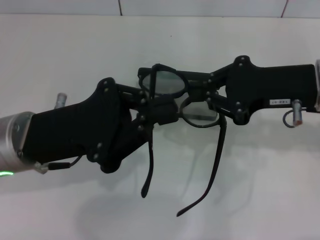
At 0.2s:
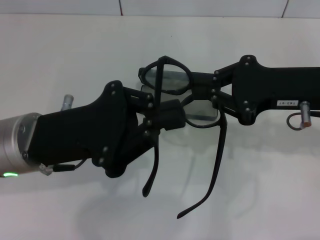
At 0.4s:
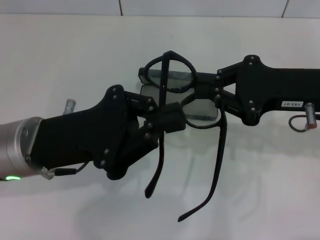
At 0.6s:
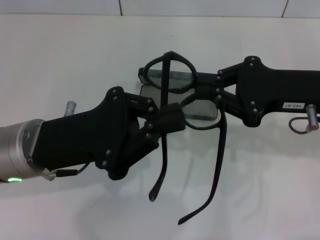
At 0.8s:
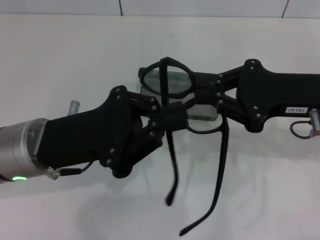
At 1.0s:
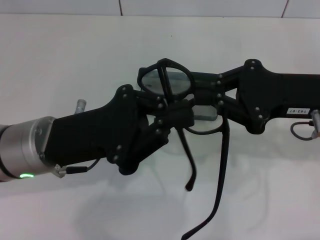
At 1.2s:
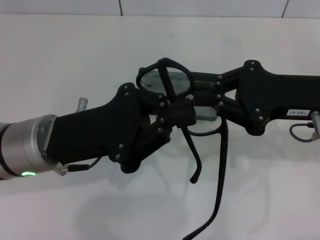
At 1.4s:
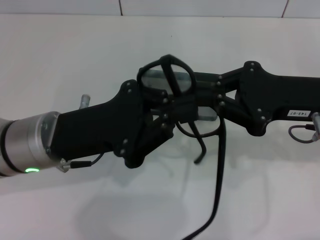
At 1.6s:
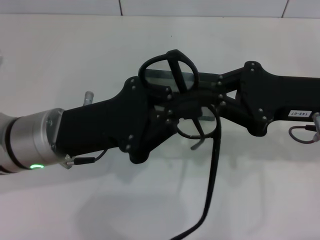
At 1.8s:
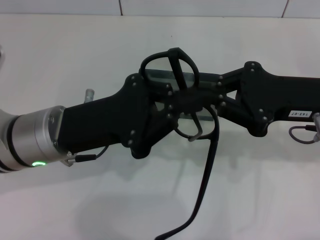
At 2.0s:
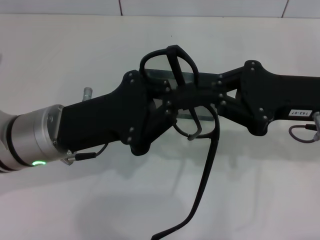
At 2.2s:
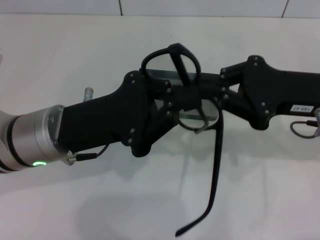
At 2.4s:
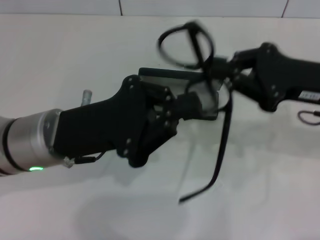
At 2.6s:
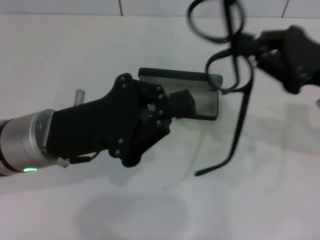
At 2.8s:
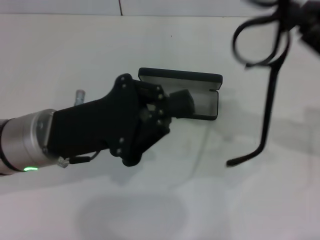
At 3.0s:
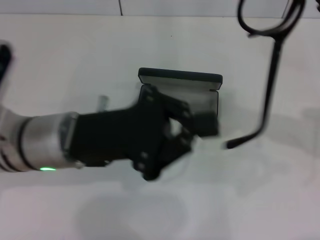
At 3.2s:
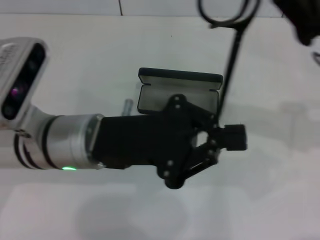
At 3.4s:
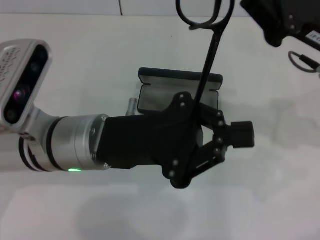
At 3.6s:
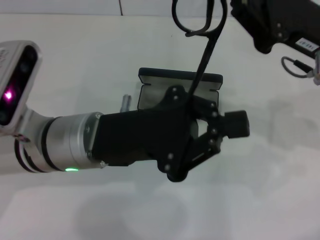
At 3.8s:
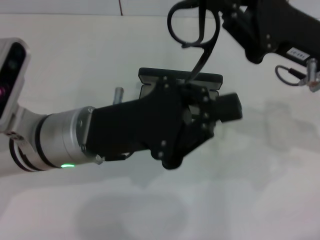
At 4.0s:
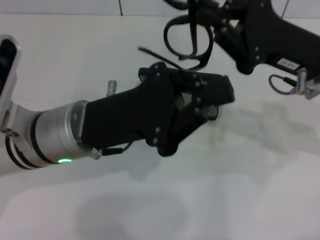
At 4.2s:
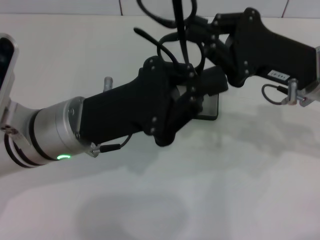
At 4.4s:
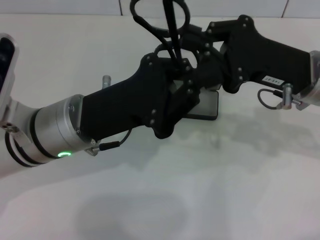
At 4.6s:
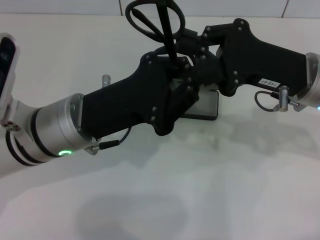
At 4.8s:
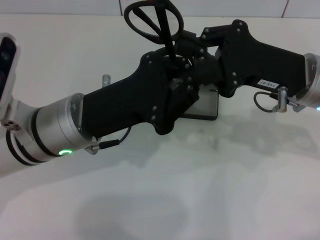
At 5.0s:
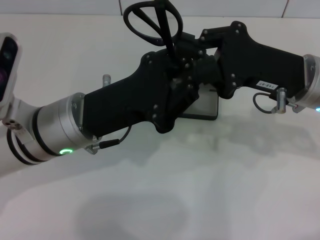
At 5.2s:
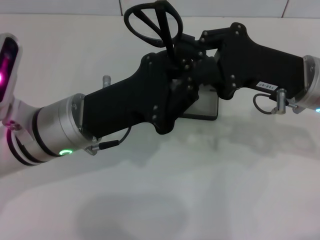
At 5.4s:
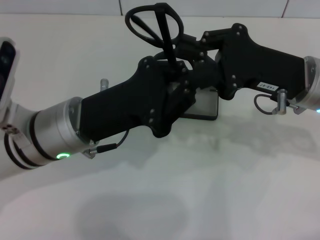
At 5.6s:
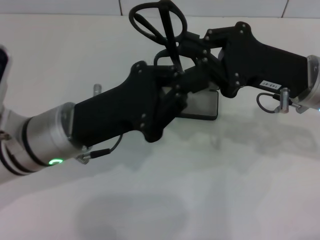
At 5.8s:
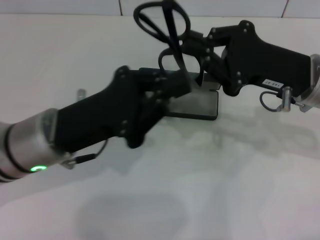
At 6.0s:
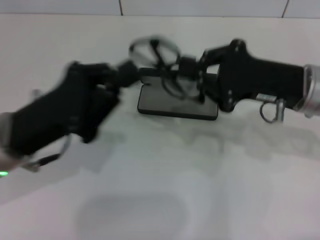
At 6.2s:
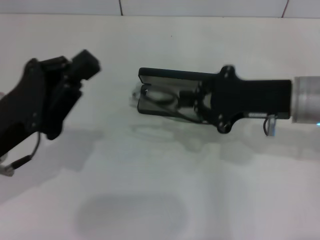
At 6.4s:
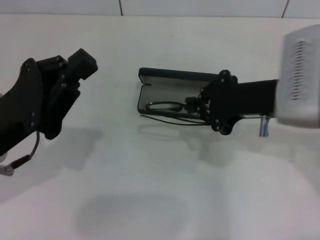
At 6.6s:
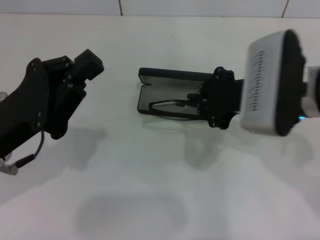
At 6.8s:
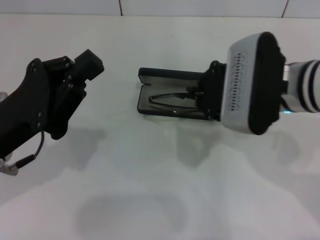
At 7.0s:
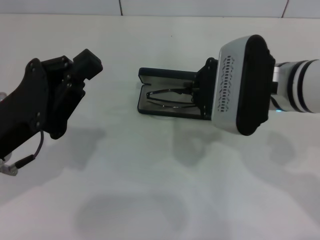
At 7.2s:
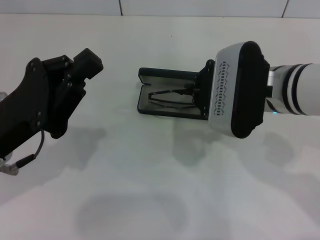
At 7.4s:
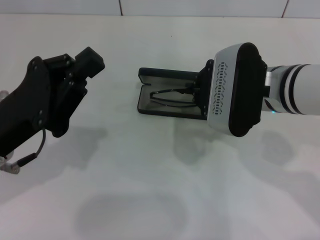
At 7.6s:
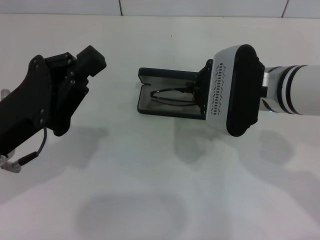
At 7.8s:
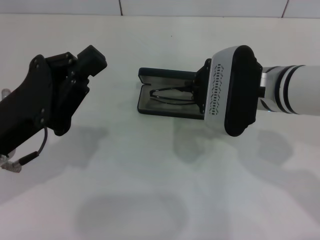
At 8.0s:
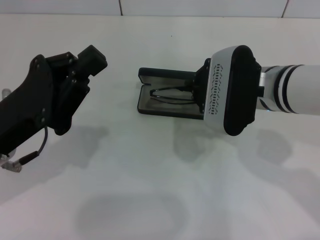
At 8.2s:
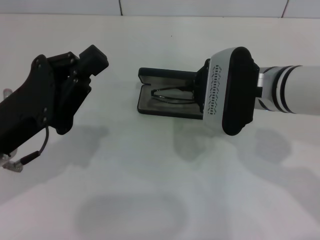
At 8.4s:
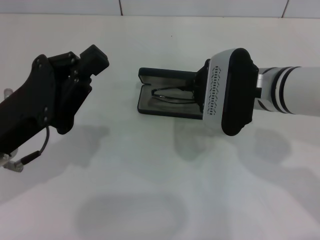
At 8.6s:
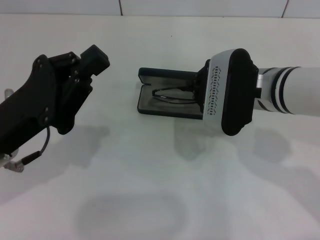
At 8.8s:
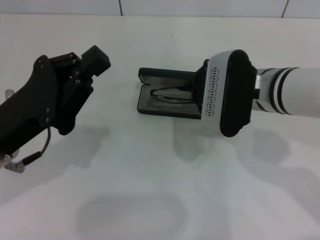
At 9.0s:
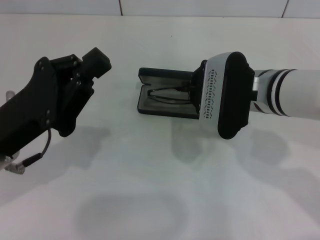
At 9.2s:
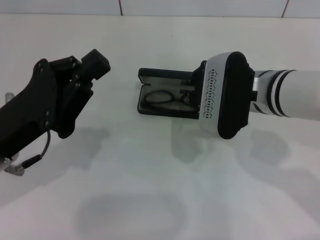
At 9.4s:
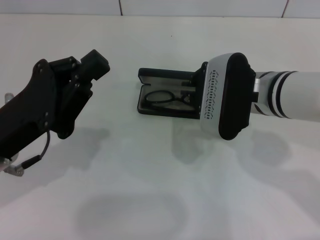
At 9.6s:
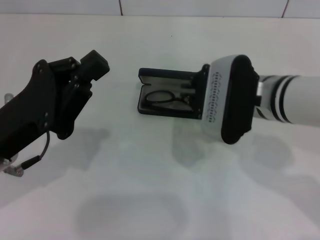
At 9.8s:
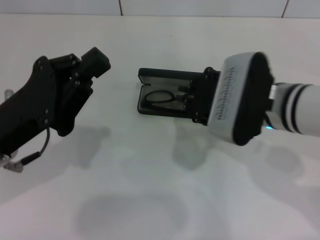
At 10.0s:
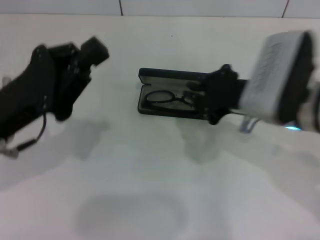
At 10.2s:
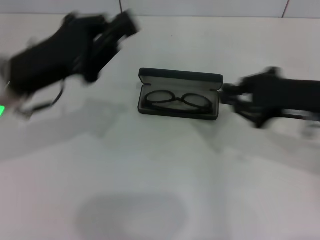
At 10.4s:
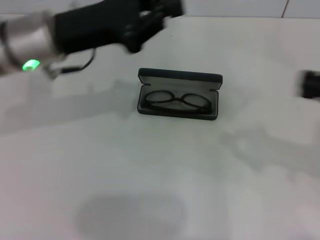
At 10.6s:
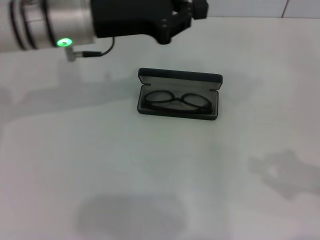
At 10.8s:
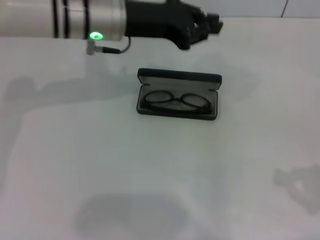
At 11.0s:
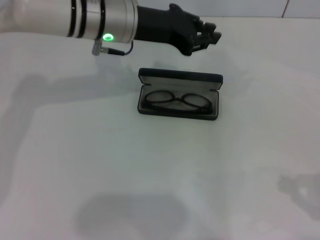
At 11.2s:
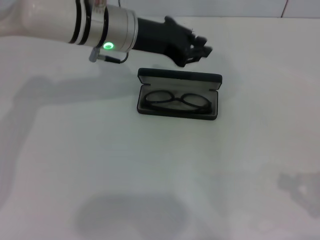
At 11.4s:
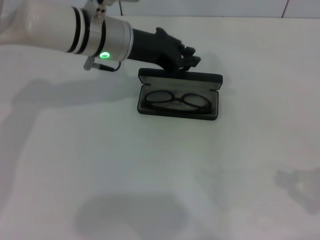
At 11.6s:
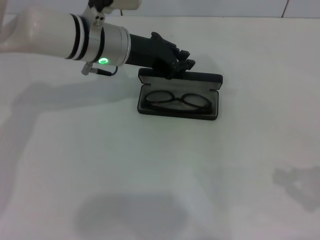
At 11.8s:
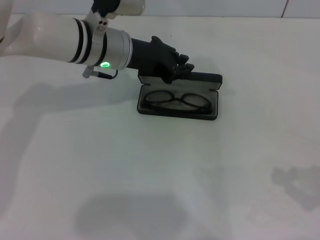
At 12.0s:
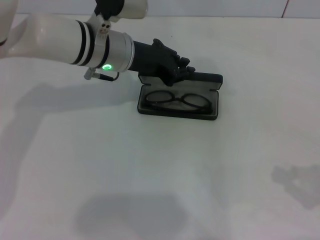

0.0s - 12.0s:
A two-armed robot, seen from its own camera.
Step, 0.0s - 5.2s: Fold the frame with your left hand.
Step, 5.6s - 9.0s: Put the glasses into the case with your right hand.
0.0s - 1.6s: The grippers move only a little.
1.6s - 3.0s: The right gripper shifts by about 5 cm.
3.0s - 4.4s: The right gripper travels to the left by about 5 cm.
4.4s - 6.0s: The left gripper moves to the left, about 5 cm.
6.0s - 7.6s: The right gripper is displaced to the left by approximately 5 cm.
7.6s - 9.0s: The grippers make only small movements.
9.0s - 10.4s: The right gripper goes approximately 20 cm to the right and backward. Meanwhile the left gripper goes roughly 15 cm forward, upward and to the right.
10.4s - 12.0s: The right gripper travels downward, to the right and backward by approximately 10 cm, while the left gripper goes roughly 10 cm to the right and forward.

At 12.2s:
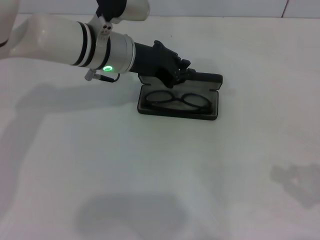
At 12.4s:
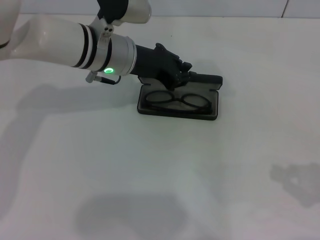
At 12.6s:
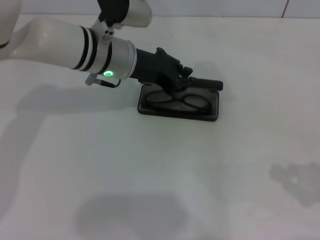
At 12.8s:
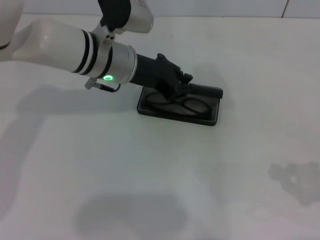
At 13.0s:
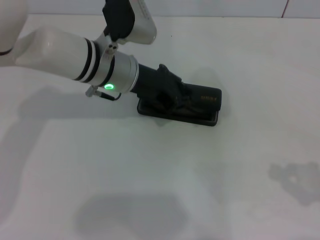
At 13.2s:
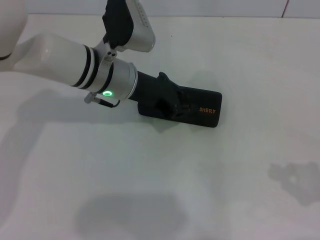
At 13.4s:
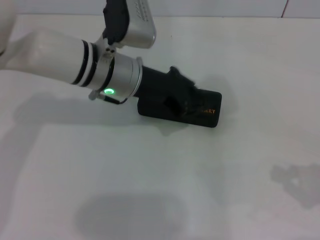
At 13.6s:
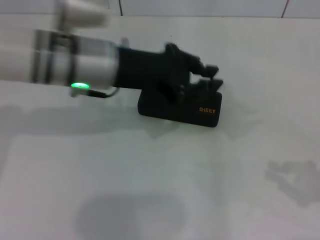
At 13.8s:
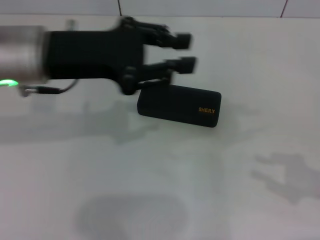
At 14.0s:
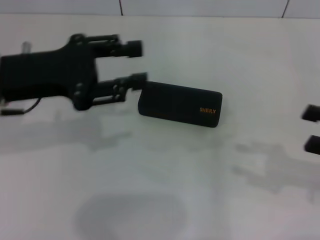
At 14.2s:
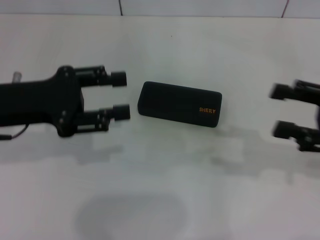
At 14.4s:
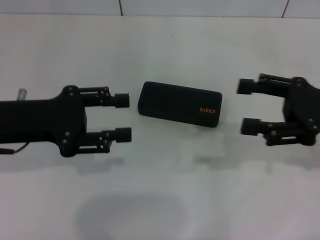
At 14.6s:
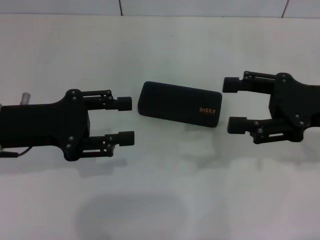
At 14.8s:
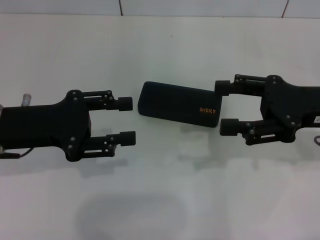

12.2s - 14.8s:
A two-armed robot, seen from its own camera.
12.2s - 13.4s: The grippers move only a little.
13.4s - 14.8s: The left gripper moves to the left and backward, about 20 cm, and opens its fingers. Meanwhile the right gripper goes roughly 15 cm to the left and forward, and opens its fingers.

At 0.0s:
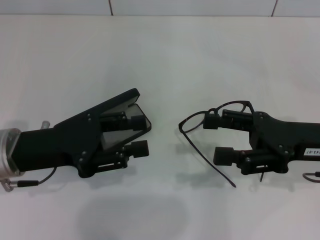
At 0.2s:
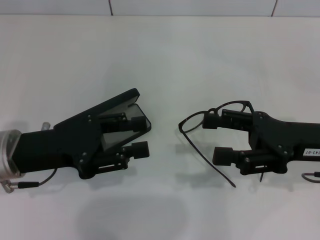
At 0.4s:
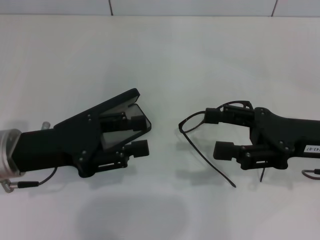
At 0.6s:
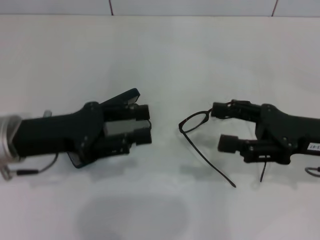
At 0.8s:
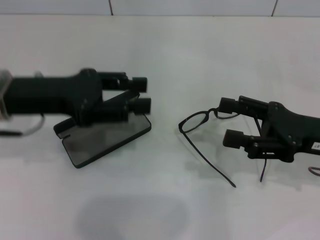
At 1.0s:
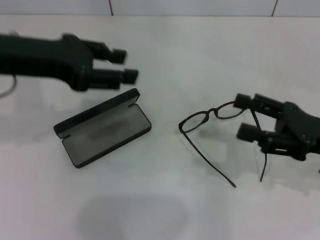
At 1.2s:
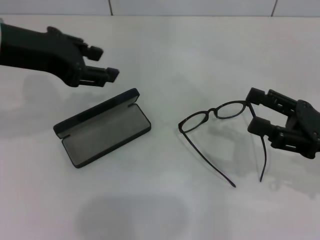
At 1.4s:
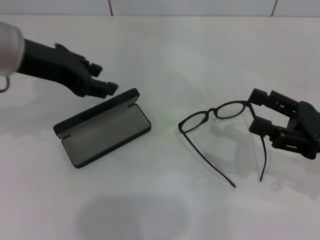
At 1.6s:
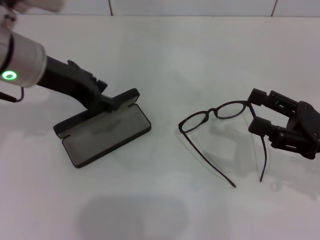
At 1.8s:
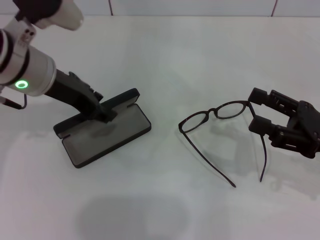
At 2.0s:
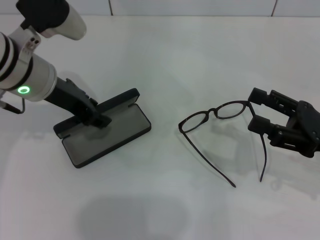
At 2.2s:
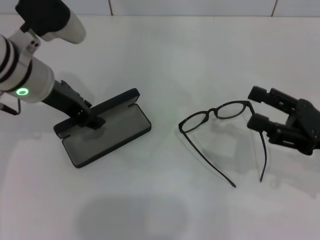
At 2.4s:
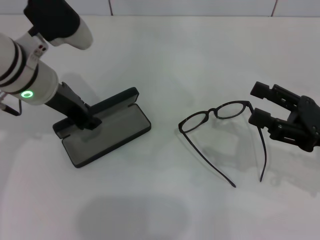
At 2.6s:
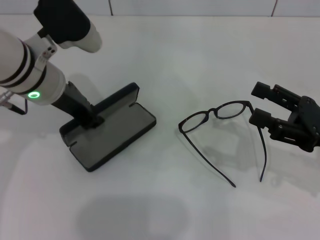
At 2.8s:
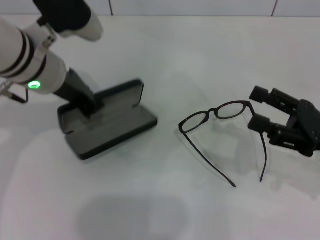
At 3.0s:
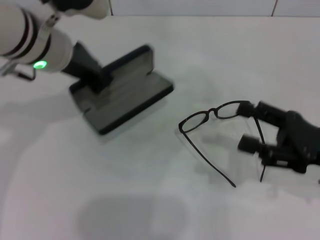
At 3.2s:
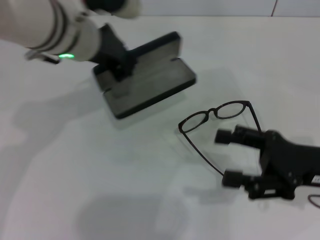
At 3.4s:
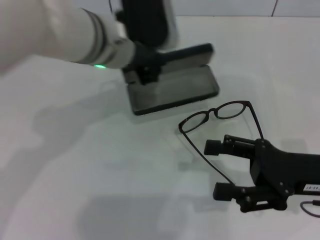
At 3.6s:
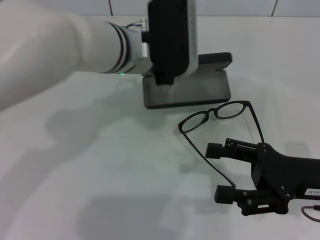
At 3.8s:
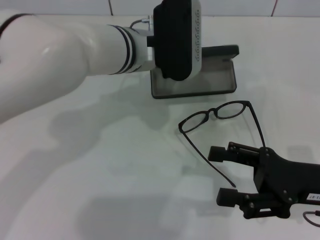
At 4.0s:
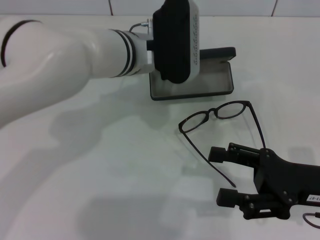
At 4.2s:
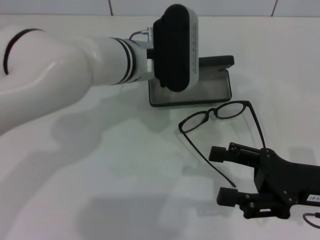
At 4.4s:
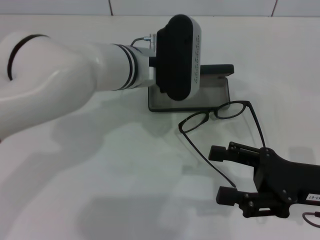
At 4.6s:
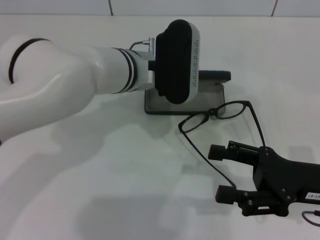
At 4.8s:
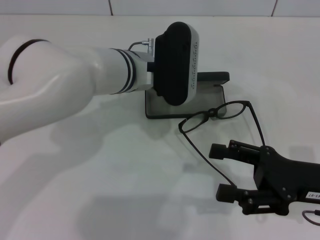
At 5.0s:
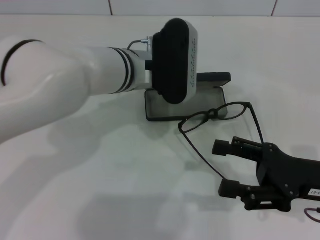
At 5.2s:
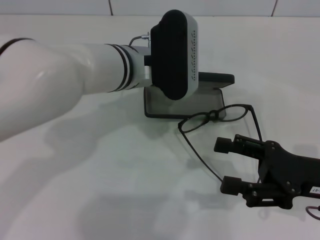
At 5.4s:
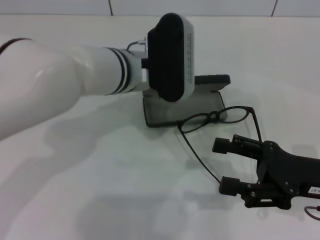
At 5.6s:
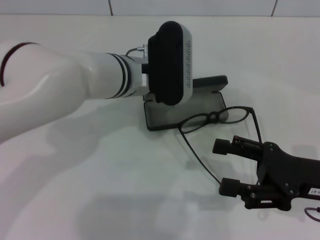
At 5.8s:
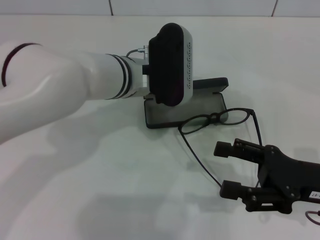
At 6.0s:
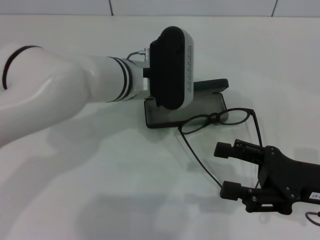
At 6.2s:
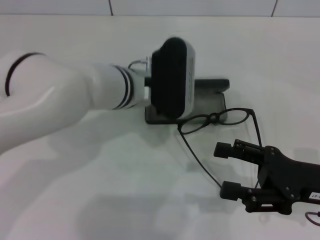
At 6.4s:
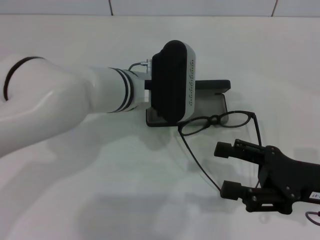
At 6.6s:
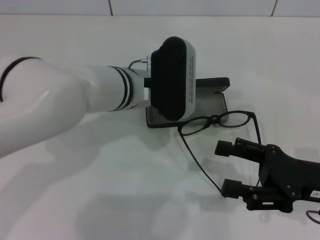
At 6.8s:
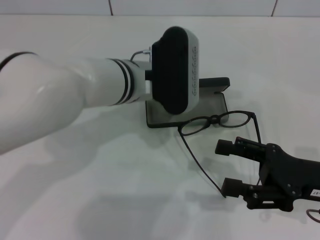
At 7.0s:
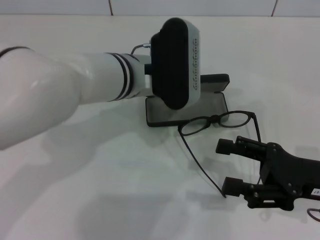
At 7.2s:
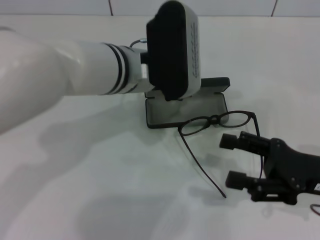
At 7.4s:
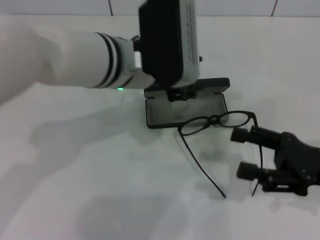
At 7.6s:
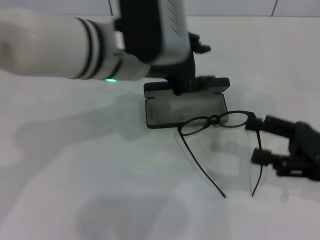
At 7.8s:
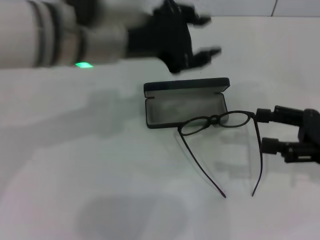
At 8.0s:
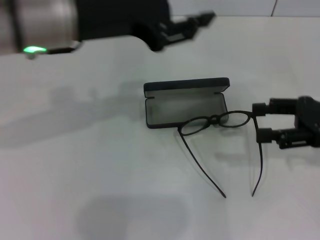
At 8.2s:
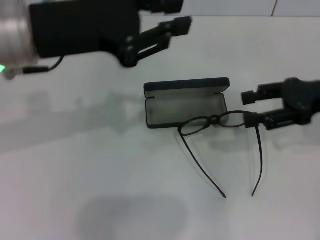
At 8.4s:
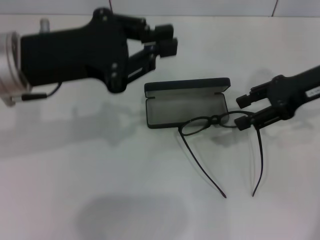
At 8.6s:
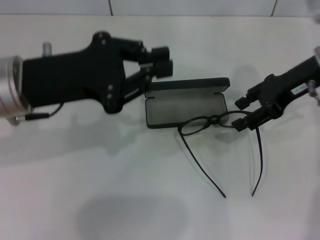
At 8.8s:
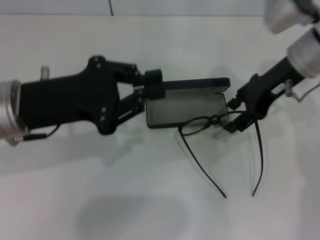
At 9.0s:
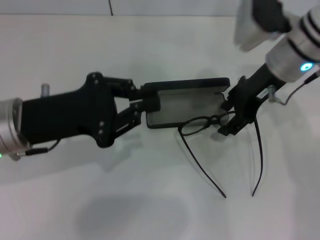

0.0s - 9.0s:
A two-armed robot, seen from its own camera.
Step, 0.0s - 2.4s: Grab the glasses case with your left hand.
Step, 2.6s - 6.4s: Place the glasses case in the center of the table with your left hand.
0.0s - 1.6s: The left gripper is displaced upward and forward by some 15 cm. Meanwhile the right gripper ends up about 5 cm from where it was.
1.6s - 3.0s: The left gripper closes.
3.0s - 4.4s: The left gripper shifts roughly 10 cm to the right and downward.
4.4s - 6.0s: The left gripper opens up.
6.0s - 7.6s: The left gripper travels upward by roughly 10 cm.
7.6s - 9.0s: The left gripper heads to the left, downward and backward, covering approximately 15 cm, and closes. The right gripper is displaced forward, to the left and upward by approximately 20 cm.
